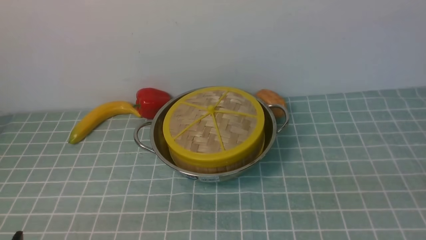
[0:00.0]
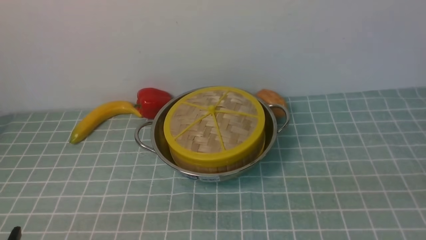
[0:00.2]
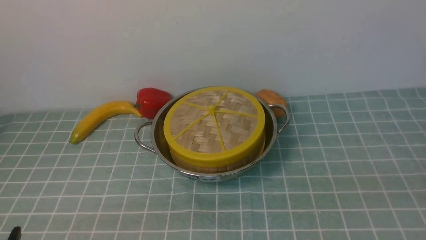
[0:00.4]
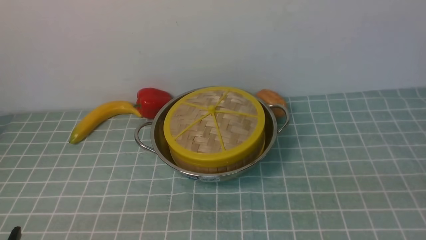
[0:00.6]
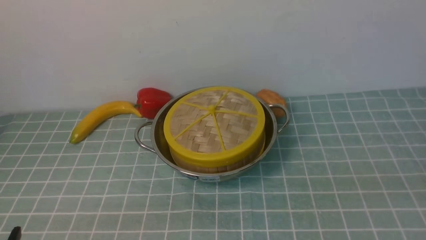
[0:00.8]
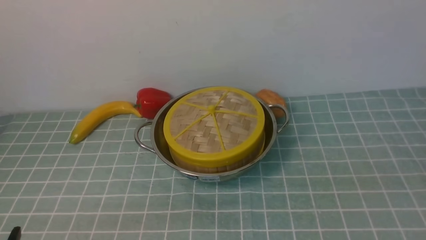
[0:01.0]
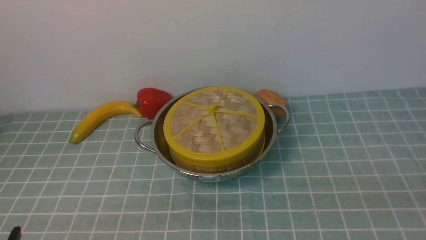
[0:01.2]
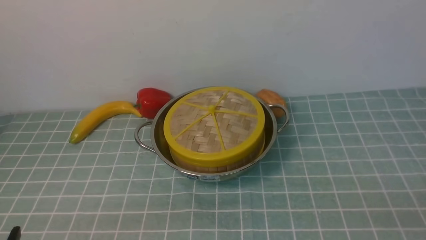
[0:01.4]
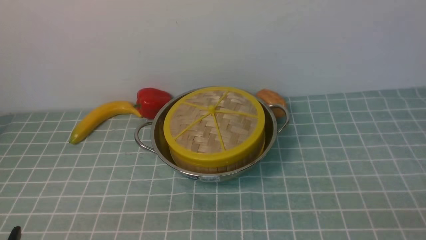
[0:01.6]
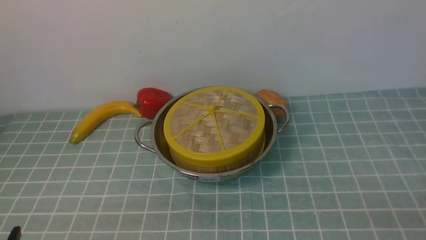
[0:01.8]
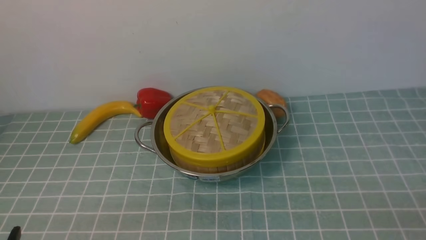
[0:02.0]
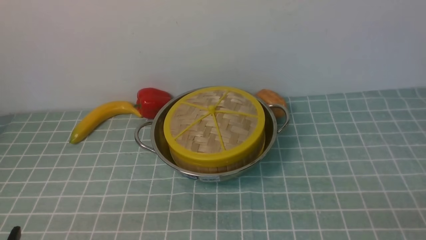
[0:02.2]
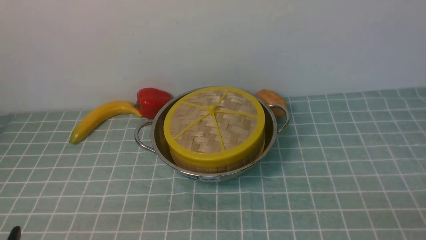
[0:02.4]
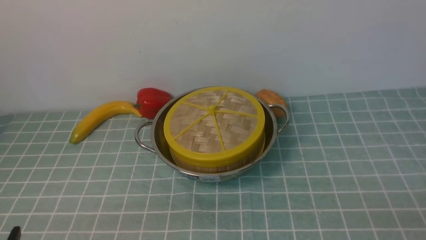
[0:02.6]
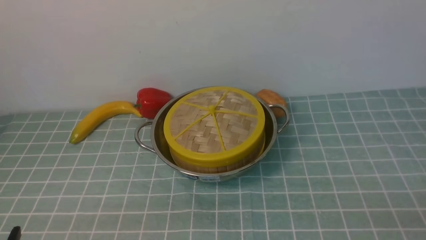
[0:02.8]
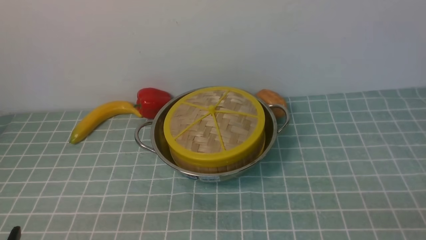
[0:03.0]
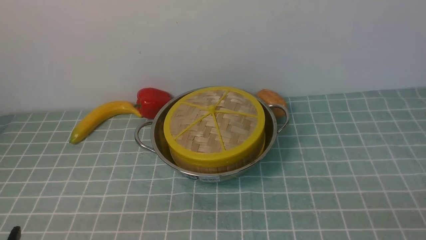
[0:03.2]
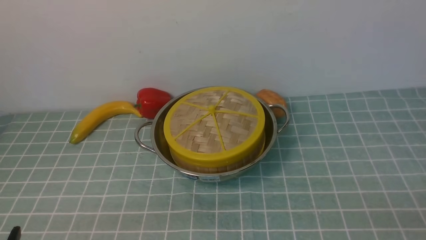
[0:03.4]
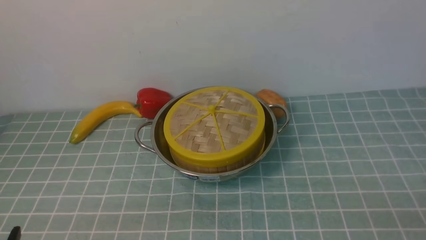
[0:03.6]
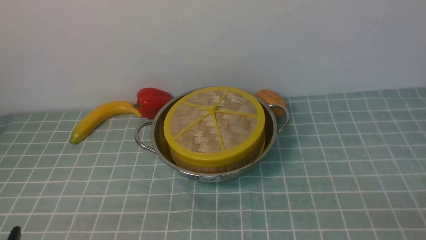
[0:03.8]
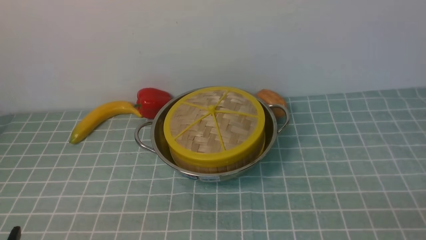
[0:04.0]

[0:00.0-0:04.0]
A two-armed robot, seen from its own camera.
Task of the whole recording: place the steamer in the pot on the blue tablecloth, and put the lid on the steamer.
1.4 to 4.0 s: The two grippers keep their place.

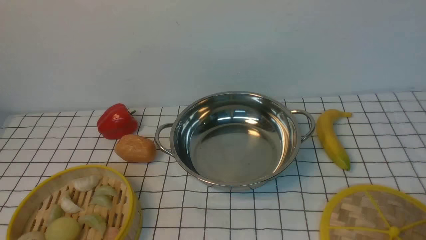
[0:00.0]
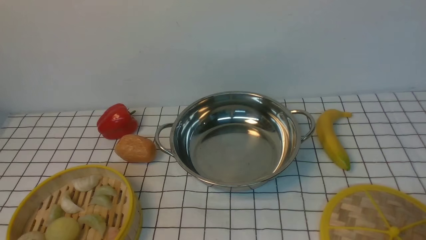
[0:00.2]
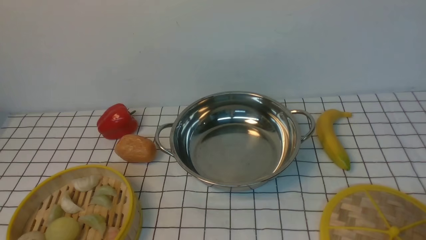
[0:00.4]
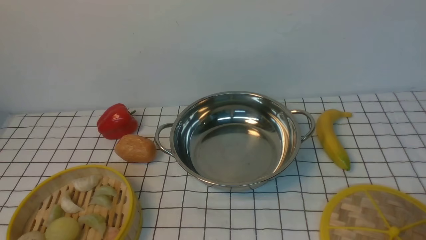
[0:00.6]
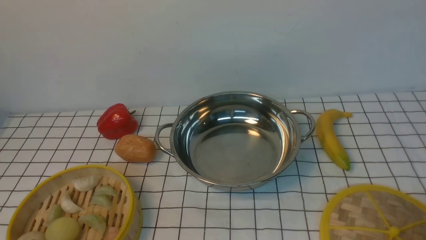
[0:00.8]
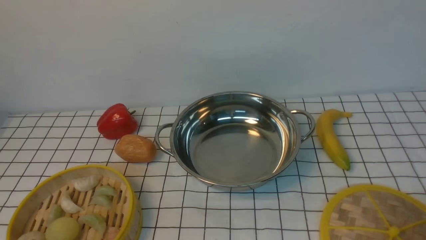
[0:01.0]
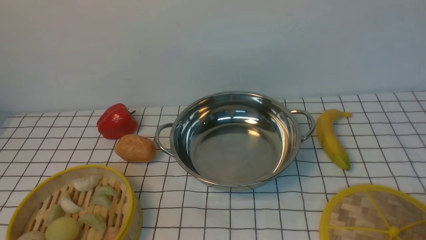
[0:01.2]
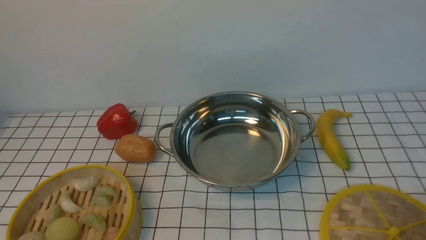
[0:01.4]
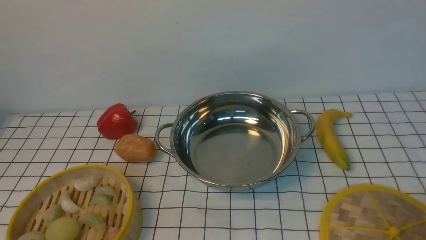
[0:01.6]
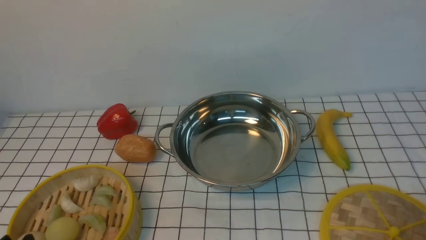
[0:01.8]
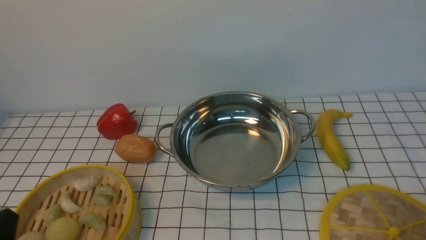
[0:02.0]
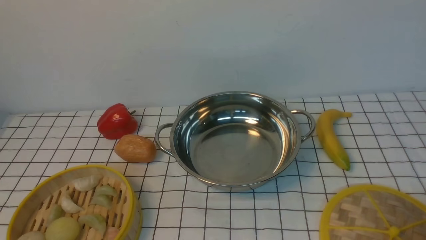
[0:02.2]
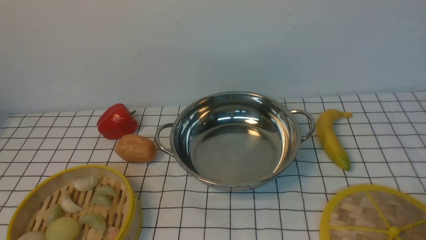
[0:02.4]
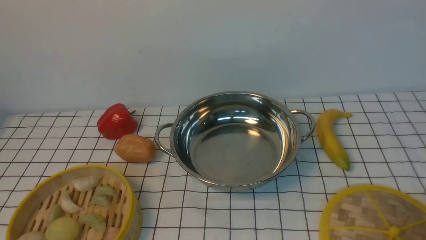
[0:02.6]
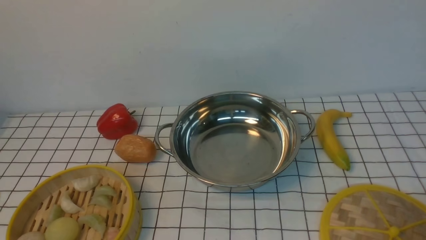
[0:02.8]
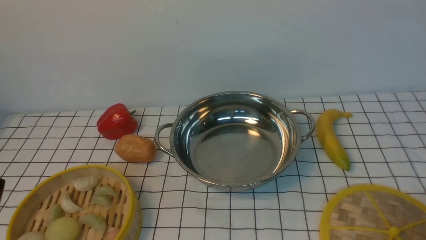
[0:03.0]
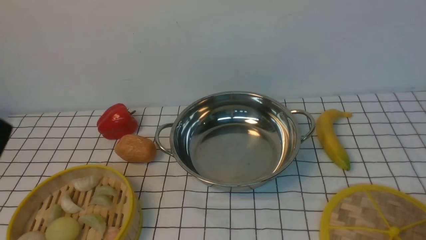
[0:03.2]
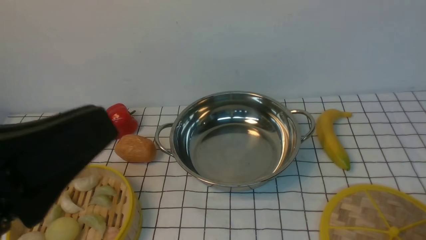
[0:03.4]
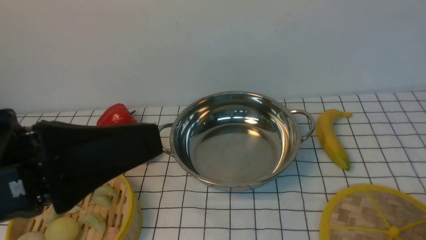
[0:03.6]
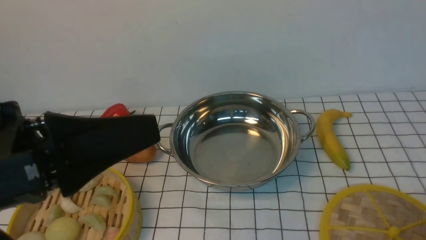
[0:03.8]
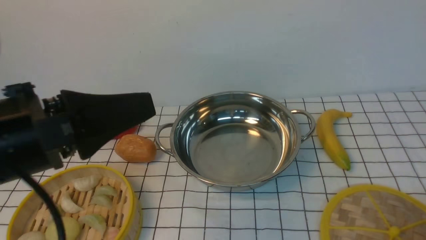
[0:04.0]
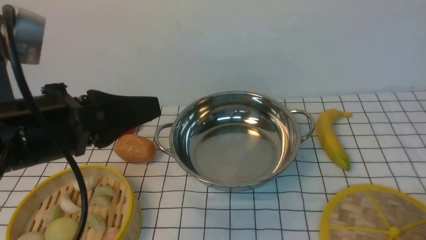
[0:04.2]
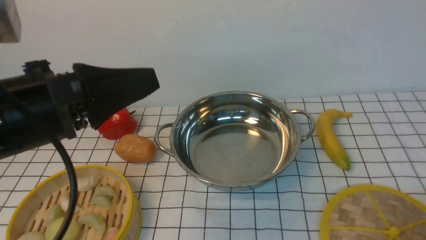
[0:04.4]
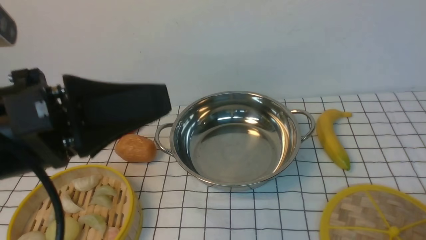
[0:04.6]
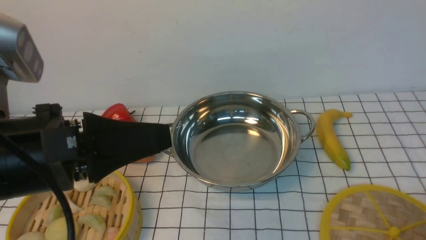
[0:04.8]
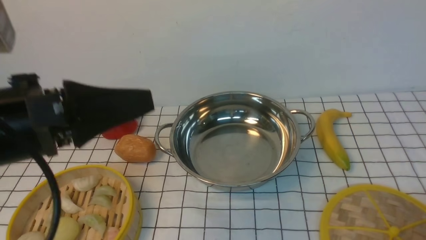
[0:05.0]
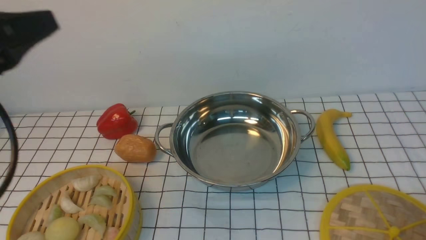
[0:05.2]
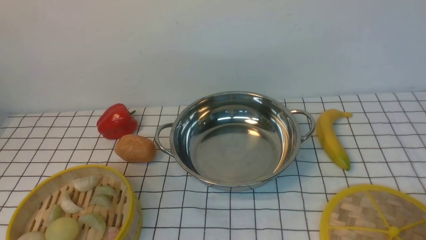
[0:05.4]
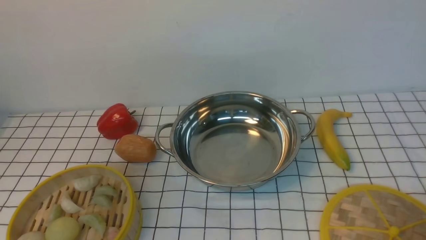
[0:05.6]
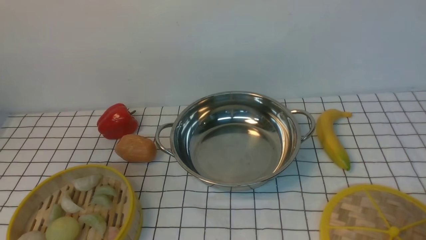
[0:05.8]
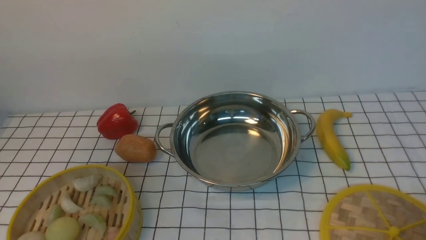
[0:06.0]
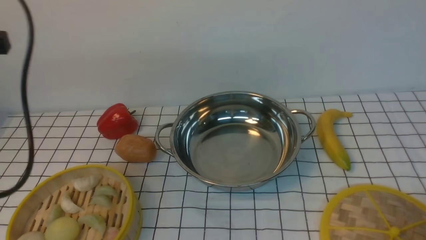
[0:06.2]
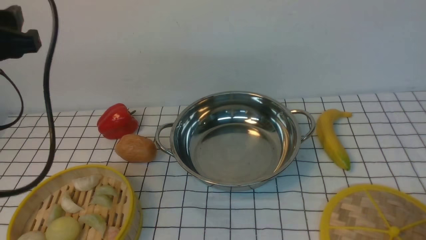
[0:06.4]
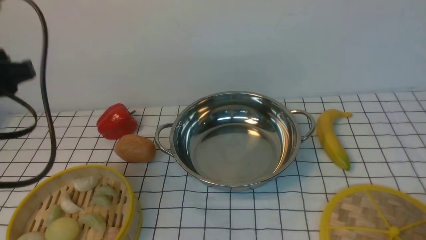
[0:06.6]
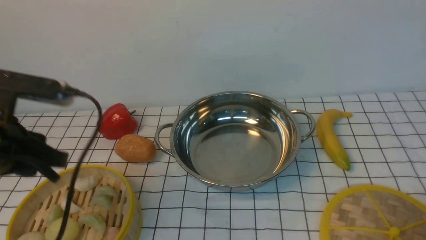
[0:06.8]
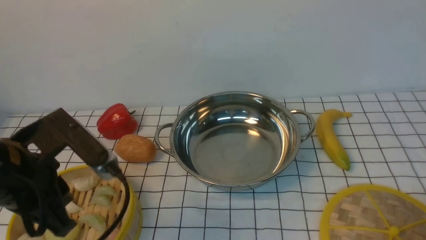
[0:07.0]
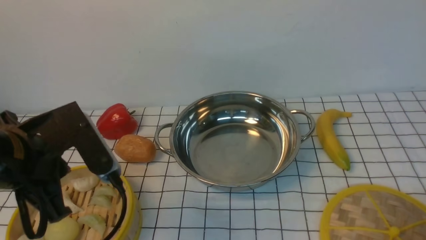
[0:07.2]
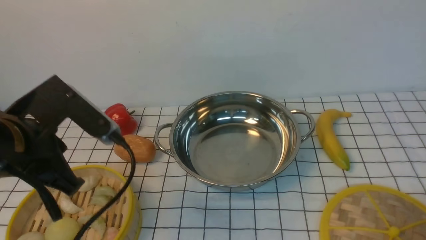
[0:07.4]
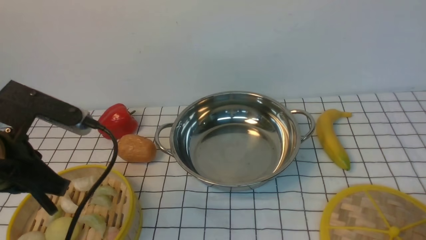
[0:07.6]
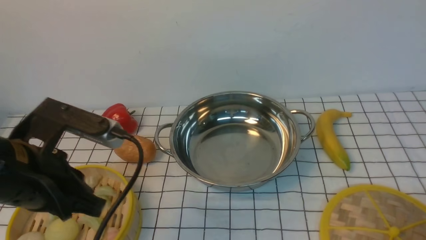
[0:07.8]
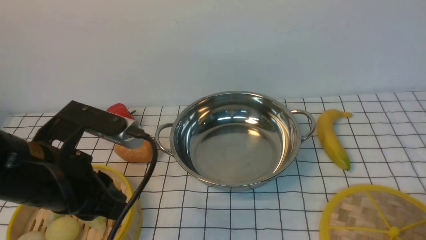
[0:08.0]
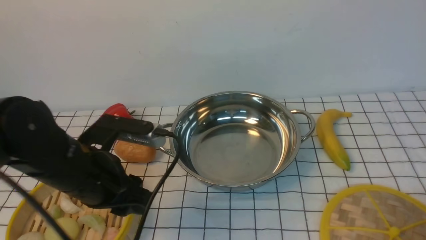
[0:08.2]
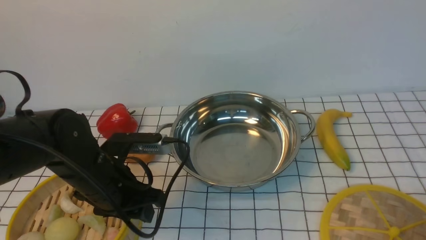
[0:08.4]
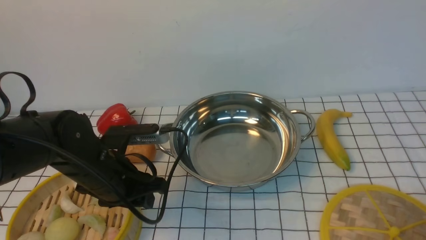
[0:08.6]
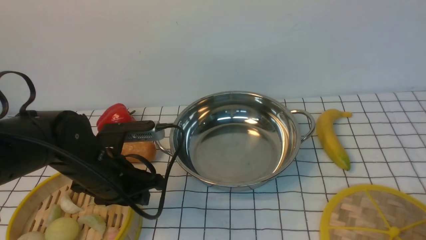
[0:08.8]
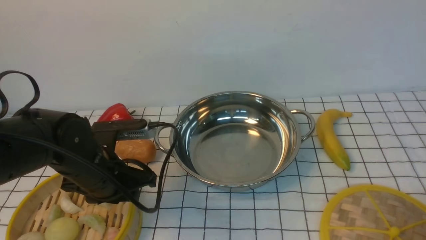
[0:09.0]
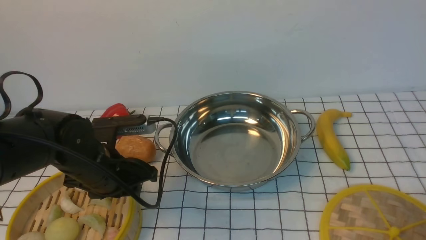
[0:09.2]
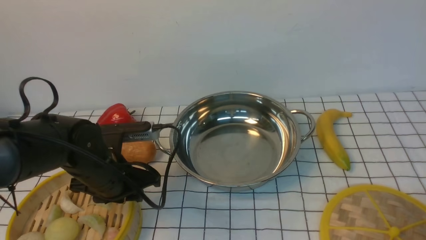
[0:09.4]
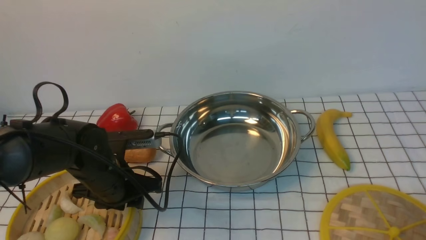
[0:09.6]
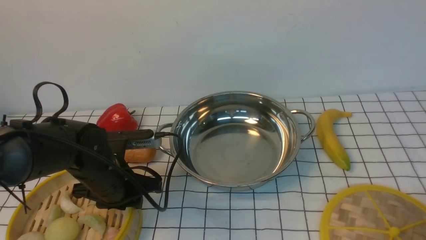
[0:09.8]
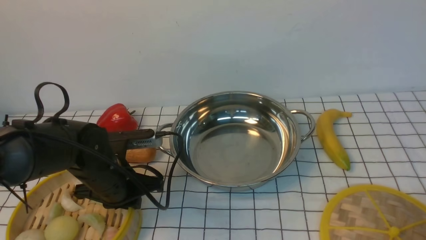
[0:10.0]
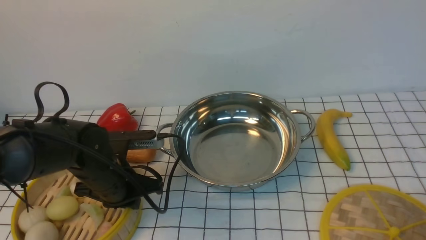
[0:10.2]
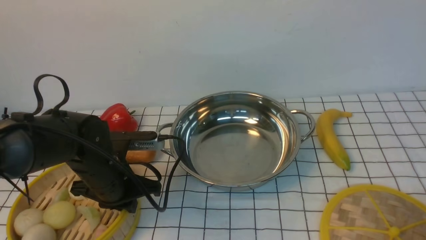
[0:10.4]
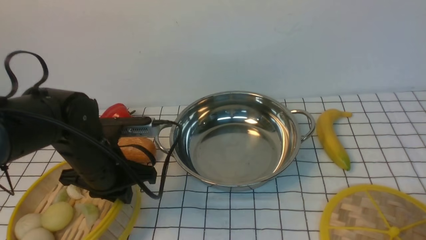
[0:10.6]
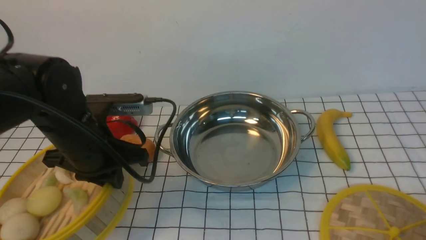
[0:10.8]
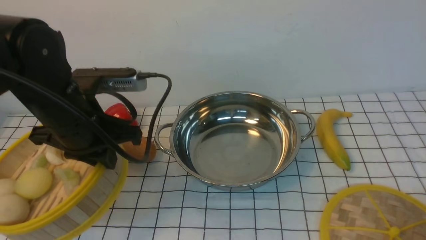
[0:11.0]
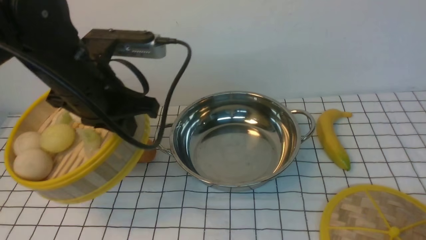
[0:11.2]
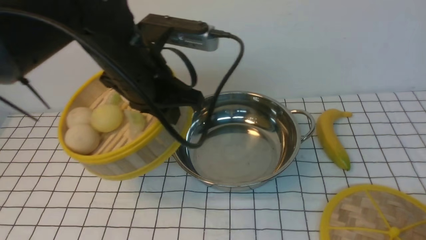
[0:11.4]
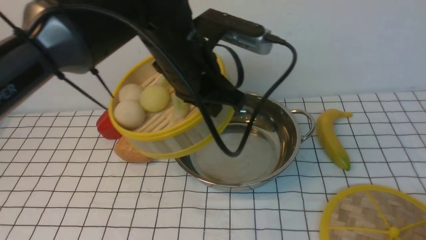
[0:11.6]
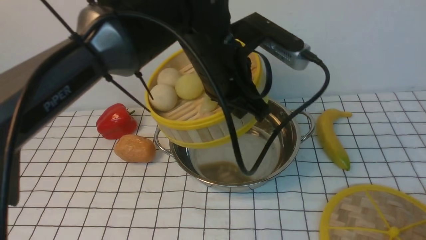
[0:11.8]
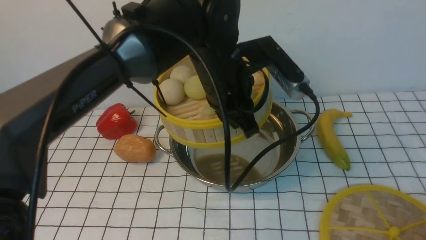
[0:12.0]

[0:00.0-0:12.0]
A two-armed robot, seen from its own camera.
Task of the whole recording: place the steamer in the pot on the white tablecloth, and put the lid on the steamer.
Step, 0.0 to 10.6 s: use the left arm to lift the steamer closest to it.
0.0 to 1.6 s: Neither gripper changes place.
3.0 to 4.4 s: The left gripper is displaced forward, upward and to the right by approximately 15 cm.
4.4 to 6.0 s: The left gripper shifts some 15 cm to the left and forward, and opens.
6.0 to 7.6 s: The left gripper shifts approximately 15 cm to the right and downward, and closes its fingers.
7.6 to 9.0 s: The left gripper travels downward and forward by some 15 cm, and opens.
9.0 to 10.4 s: The left gripper closes.
10.4 to 12.0 s: The left gripper is displaced to the right and upward by approximately 20 cm.

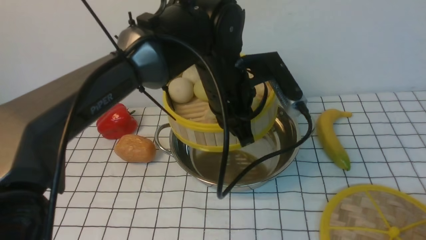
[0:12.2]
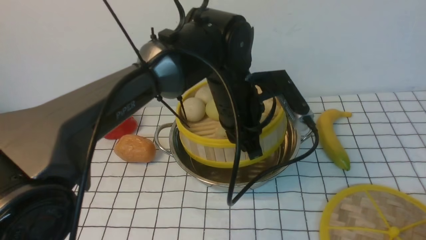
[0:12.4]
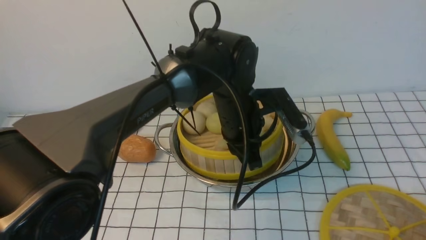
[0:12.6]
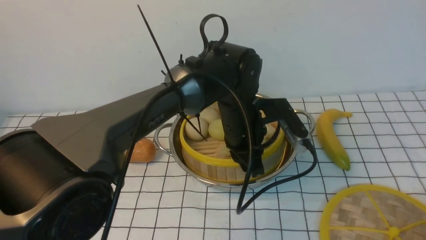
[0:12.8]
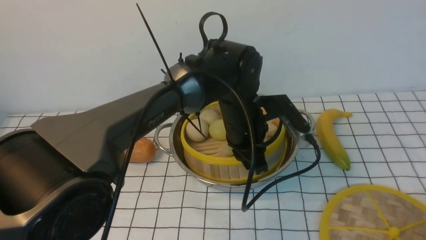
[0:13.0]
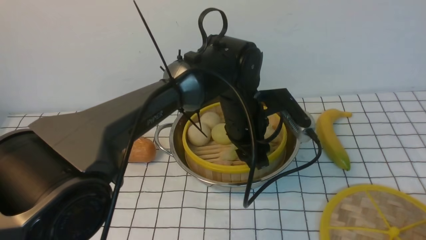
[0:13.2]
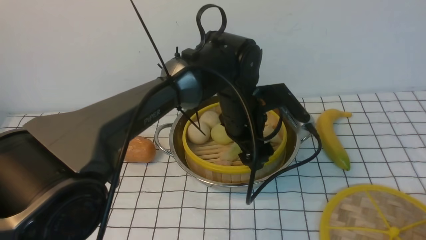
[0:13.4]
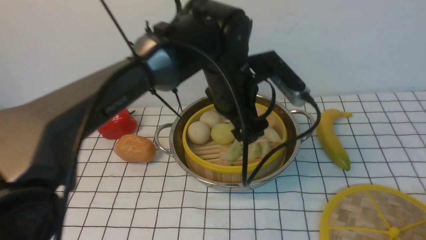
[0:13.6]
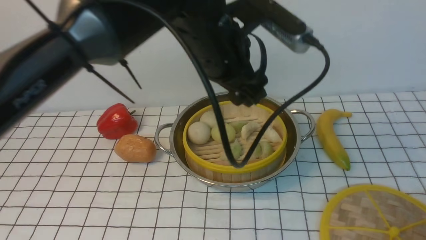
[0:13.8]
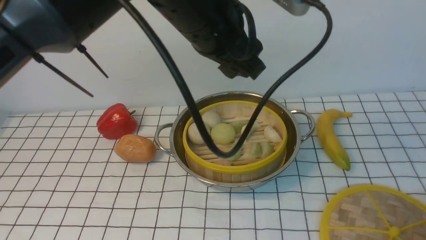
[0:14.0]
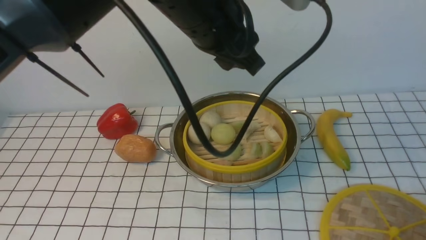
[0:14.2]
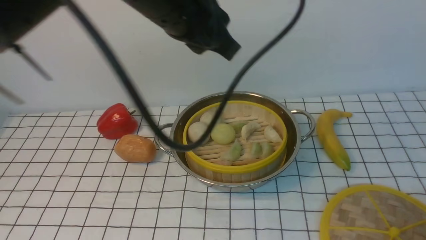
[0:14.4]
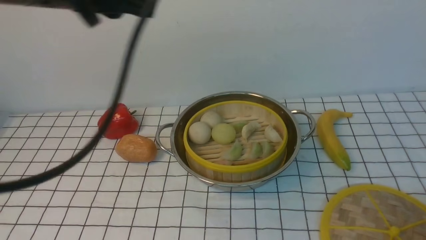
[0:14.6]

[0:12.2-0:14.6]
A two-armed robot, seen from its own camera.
Task of the whole recording: place the steamer in the pot on the white tablecloth, and put the lid on the steamer.
Step, 12.2 to 13.6 s: use the left arm to put the steamer into the iron steamer pot in the middle.
12.2 to 13.4 s: The left gripper opens.
13.4 to 14.6 s: The left gripper goes some 30 cm upward, to the left and backward, and closes.
